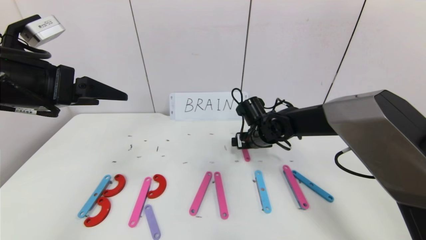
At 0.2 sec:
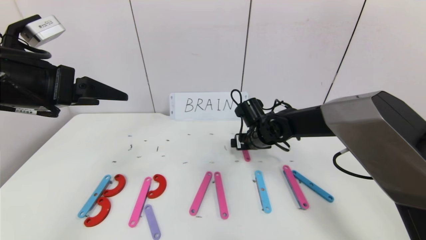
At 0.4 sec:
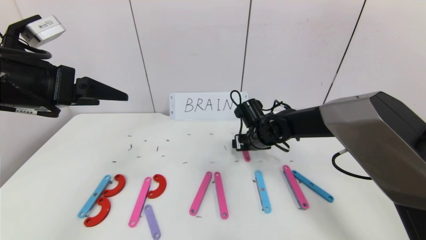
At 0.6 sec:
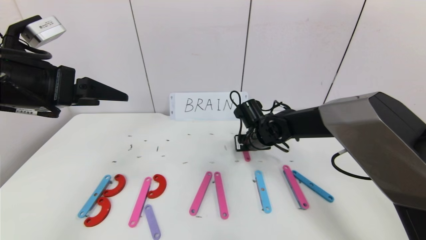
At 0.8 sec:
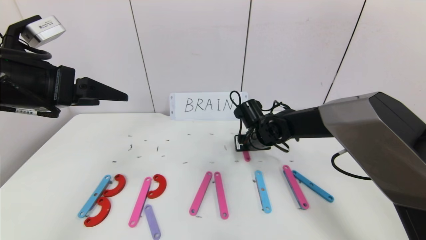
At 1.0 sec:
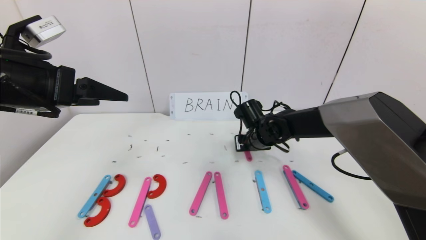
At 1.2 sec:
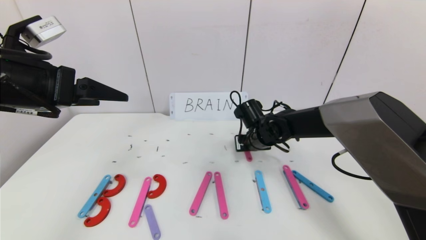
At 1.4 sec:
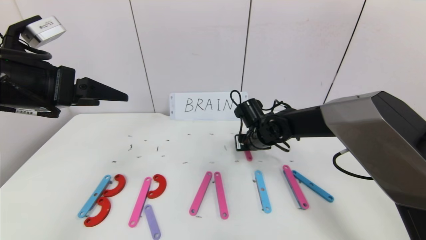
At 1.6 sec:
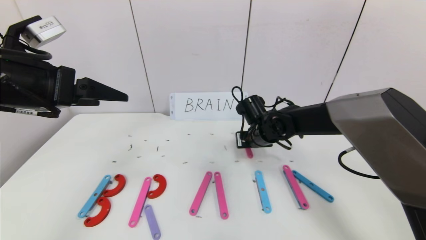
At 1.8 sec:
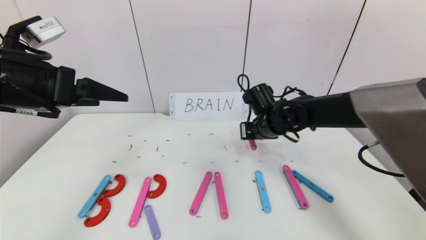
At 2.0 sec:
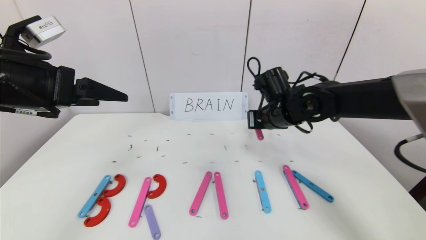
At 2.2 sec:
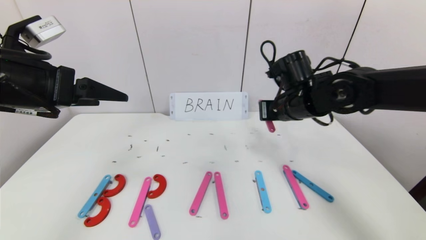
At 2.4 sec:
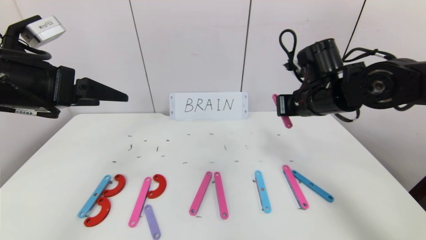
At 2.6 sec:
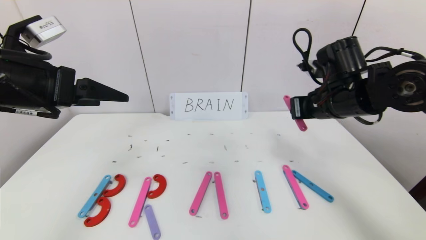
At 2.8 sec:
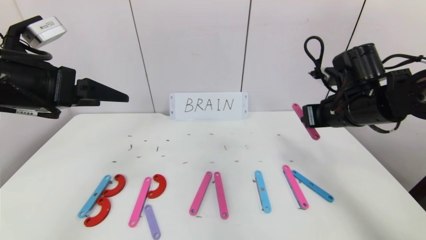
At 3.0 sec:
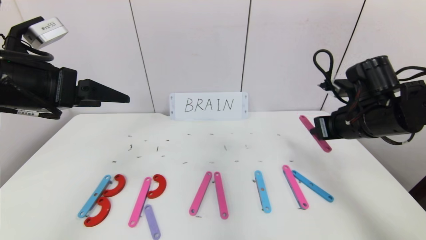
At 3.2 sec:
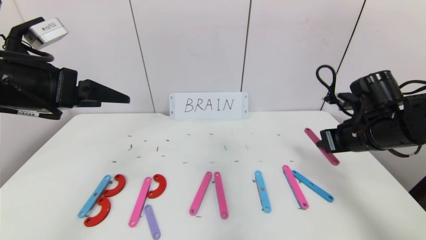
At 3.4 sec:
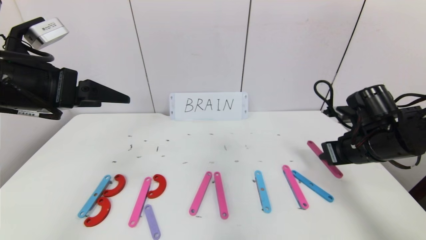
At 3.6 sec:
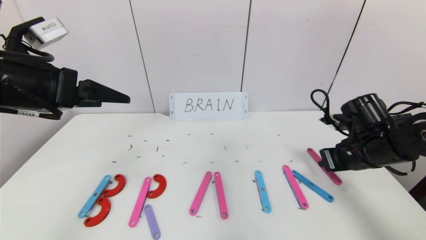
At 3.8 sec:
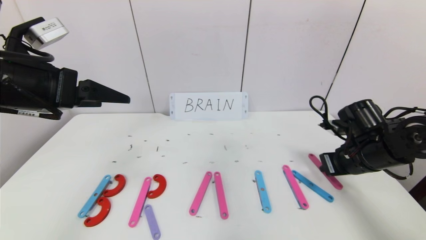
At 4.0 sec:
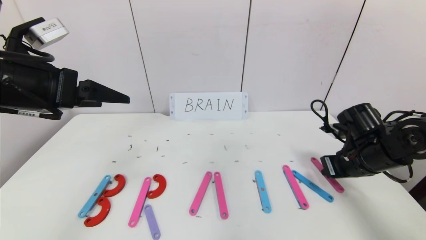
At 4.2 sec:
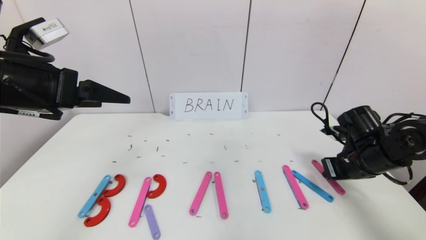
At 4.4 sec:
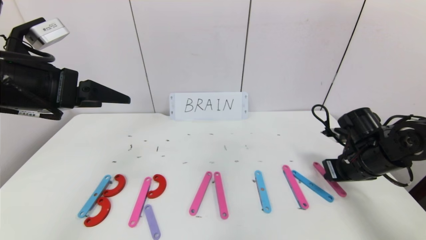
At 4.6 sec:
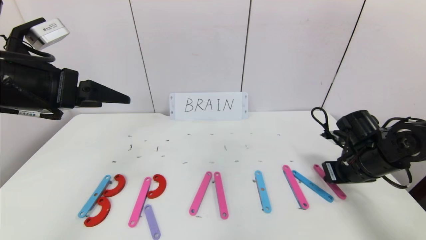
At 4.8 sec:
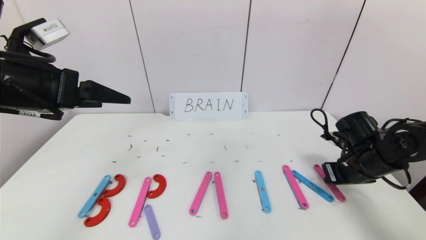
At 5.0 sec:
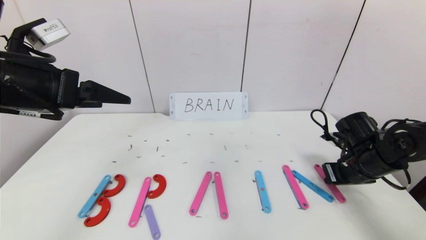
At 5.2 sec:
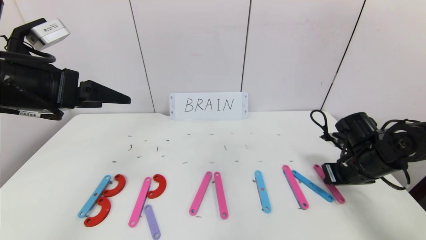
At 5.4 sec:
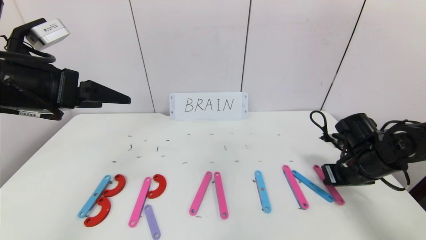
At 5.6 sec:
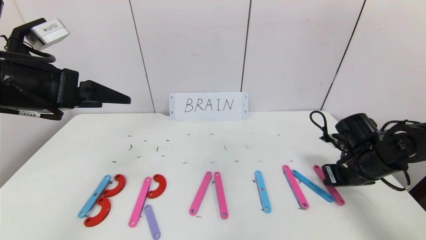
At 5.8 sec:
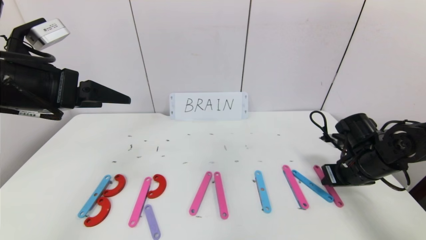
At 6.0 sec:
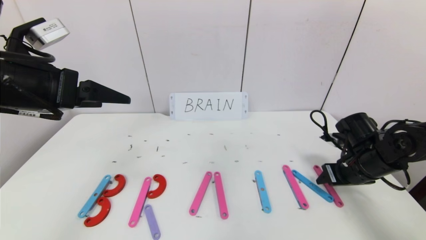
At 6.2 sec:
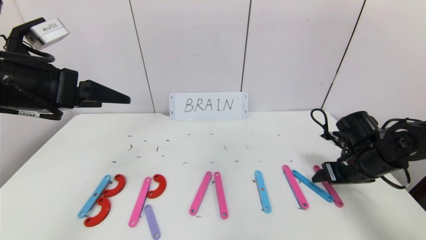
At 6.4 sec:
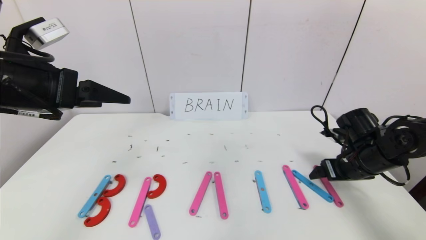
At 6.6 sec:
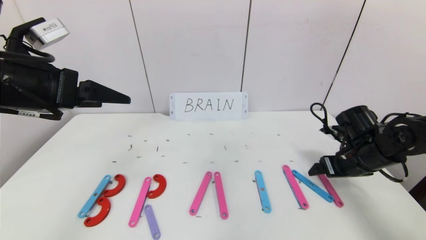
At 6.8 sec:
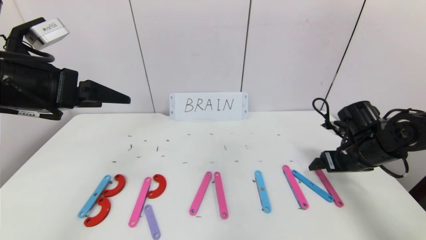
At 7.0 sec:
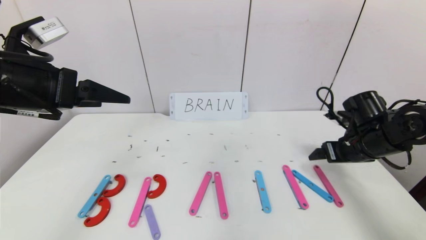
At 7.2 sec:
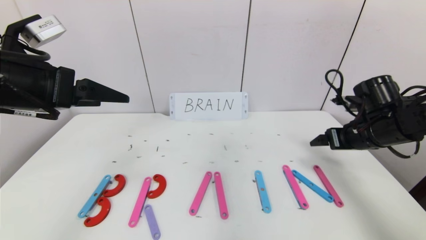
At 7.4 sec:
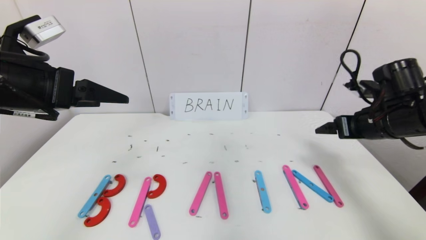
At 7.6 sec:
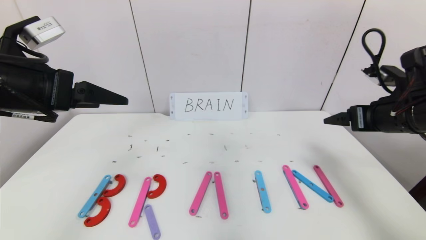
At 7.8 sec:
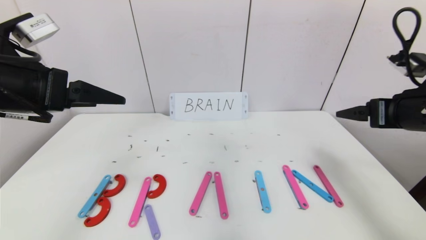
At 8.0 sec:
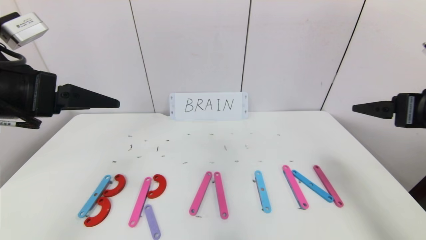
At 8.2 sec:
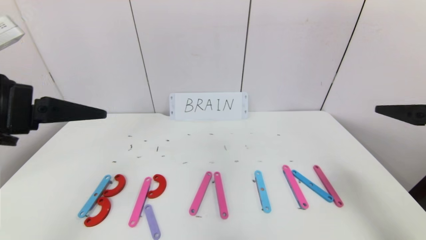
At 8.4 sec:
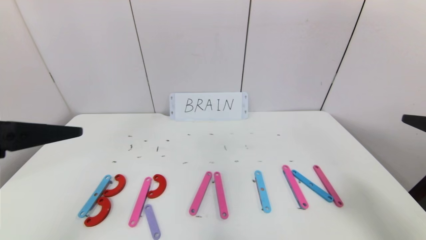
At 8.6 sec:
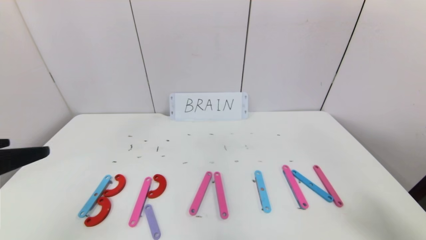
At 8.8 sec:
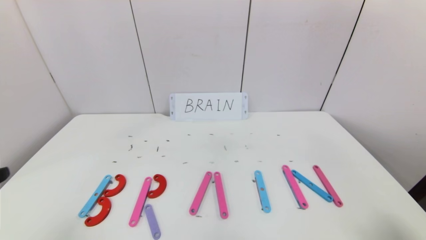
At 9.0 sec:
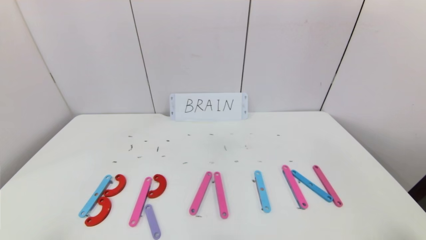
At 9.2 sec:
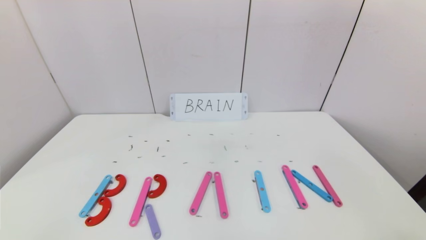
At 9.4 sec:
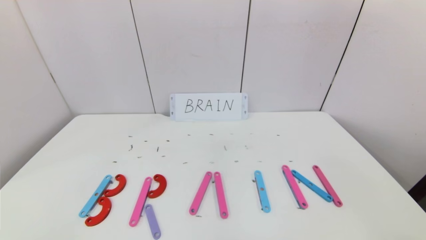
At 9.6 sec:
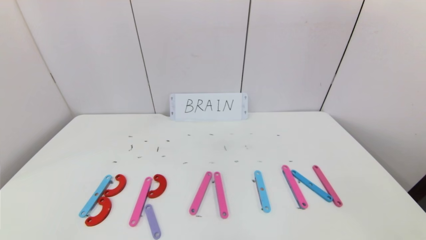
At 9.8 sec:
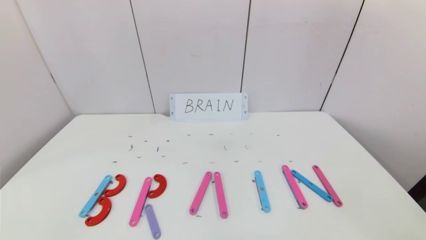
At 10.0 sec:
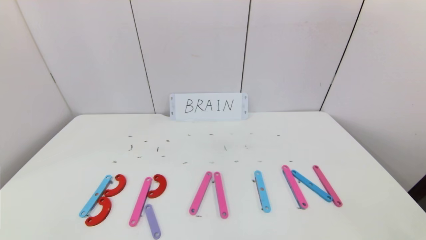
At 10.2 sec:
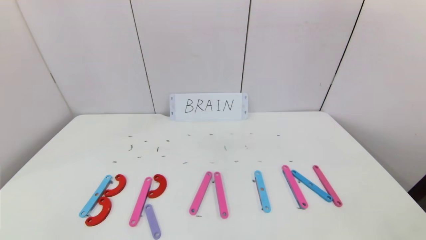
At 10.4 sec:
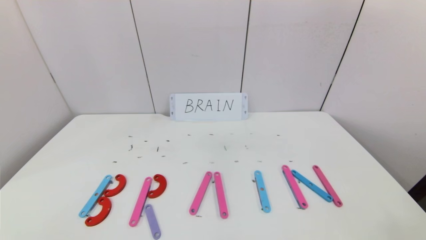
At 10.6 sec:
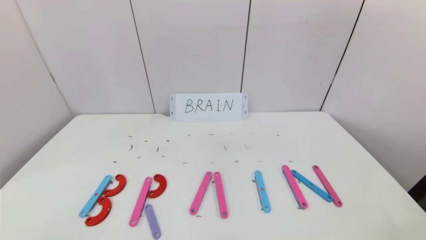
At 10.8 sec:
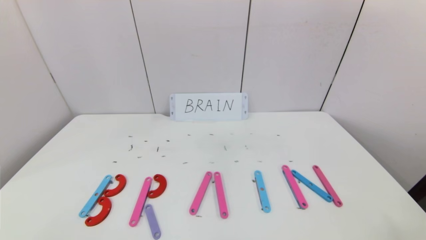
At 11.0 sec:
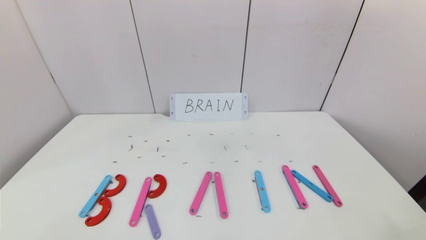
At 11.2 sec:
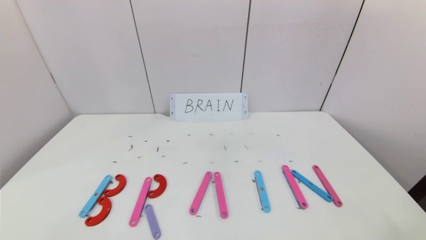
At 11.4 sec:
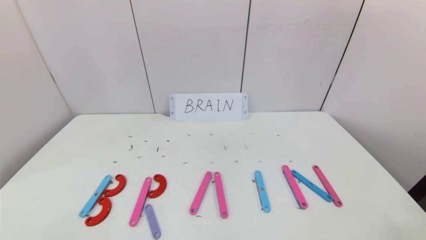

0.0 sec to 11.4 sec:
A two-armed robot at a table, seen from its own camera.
Task of the whole recording: rearrange the word baai as brain.
Step, 0.0 sec to 6.0 sec: Place the character N after character I.
0.0 sec to 1.4 sec: The right gripper closes up.
1.4 sec to 2.8 sec: The right gripper travels to the right, upward and backward by roughly 20 cm.
2.8 sec to 4.2 sec: The right gripper heads downward and to the right, covering about 10 cm.
4.2 sec to 5.6 sec: The grippers stay close to where they were, moving slightly.
5.6 sec to 7.2 sec: The right gripper is displaced upward by roughly 10 cm, and opens up.
7.2 sec to 8.6 sec: The left gripper goes about 15 cm backward. Meanwhile the right gripper shifts approximately 25 cm backward.
8.6 sec to 10.0 sec: The right gripper travels downward and backward by approximately 20 cm. The left gripper shifts approximately 20 cm backward and downward.

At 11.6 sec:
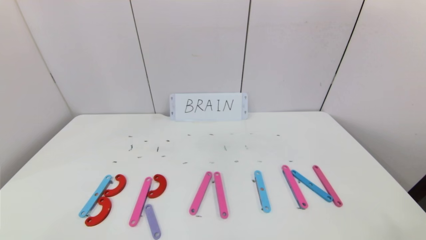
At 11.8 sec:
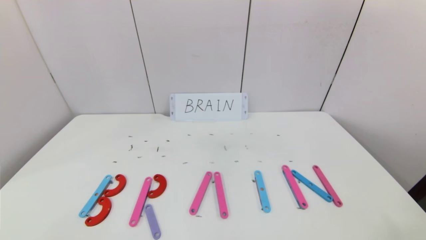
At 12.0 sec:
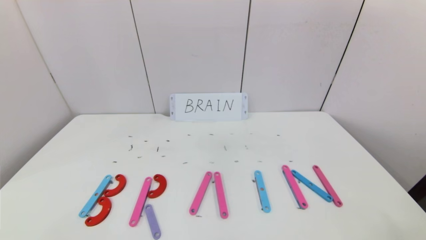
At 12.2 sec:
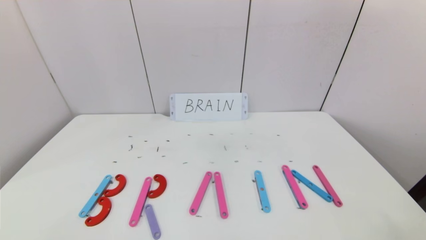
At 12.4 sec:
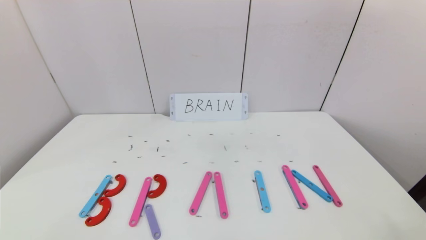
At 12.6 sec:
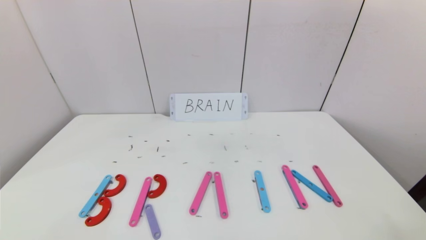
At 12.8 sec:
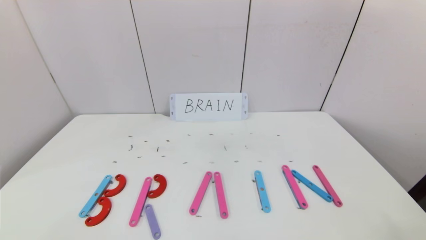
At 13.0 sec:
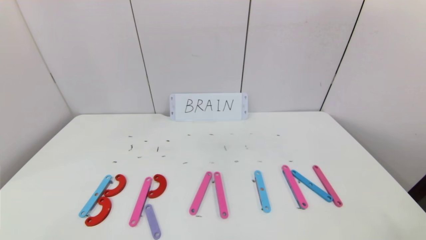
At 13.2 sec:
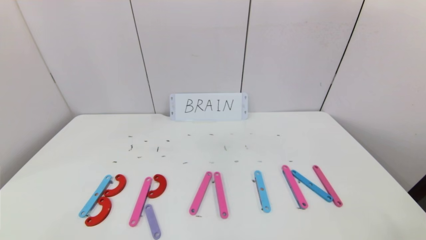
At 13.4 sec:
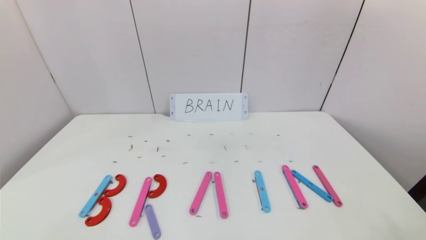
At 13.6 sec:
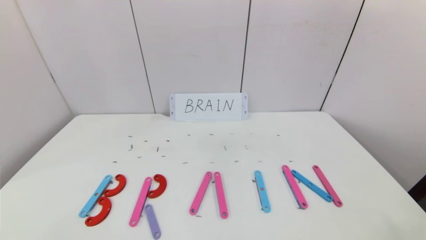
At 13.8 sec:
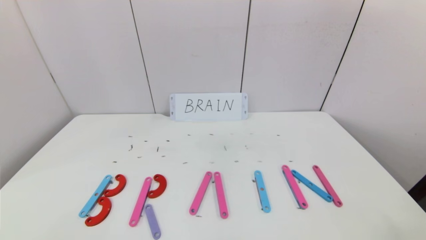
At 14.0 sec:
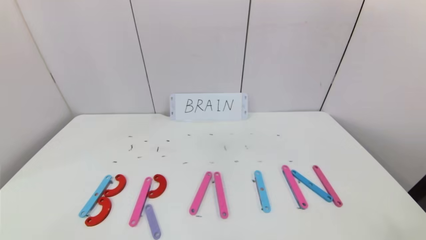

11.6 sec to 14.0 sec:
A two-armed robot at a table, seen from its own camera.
Task of the whole recording: rearrange the word baai as brain.
11.6 sec to 14.0 sec: The two grippers keep their place.
